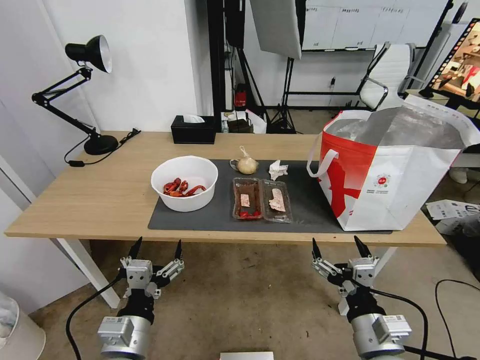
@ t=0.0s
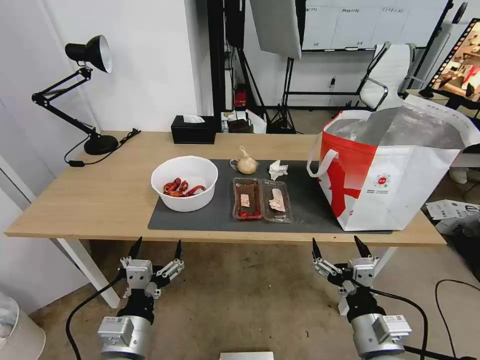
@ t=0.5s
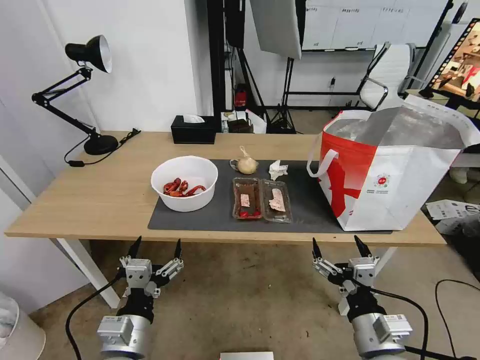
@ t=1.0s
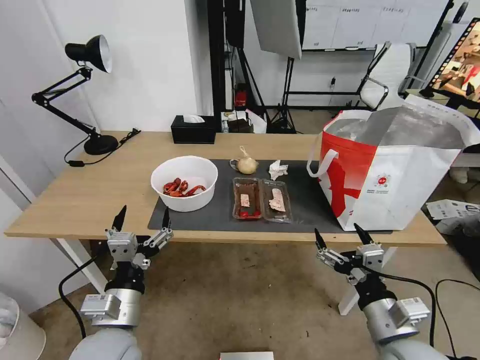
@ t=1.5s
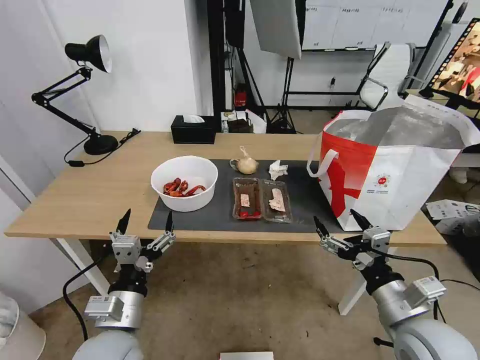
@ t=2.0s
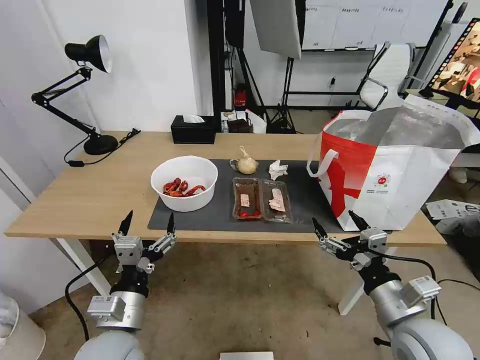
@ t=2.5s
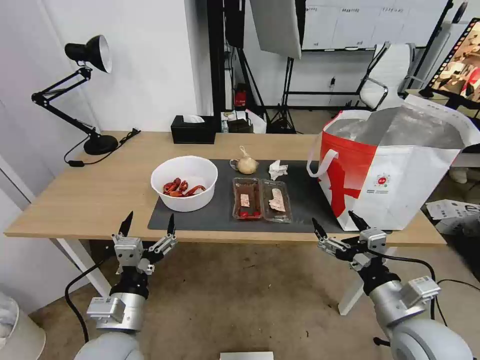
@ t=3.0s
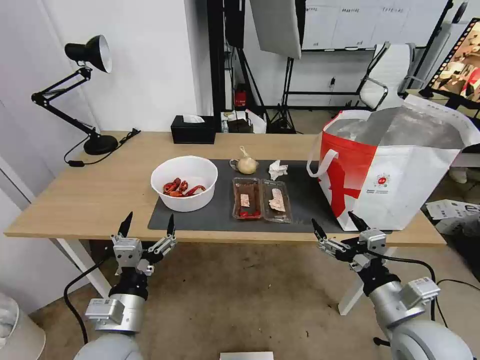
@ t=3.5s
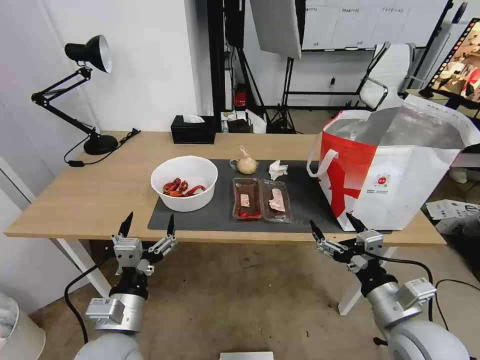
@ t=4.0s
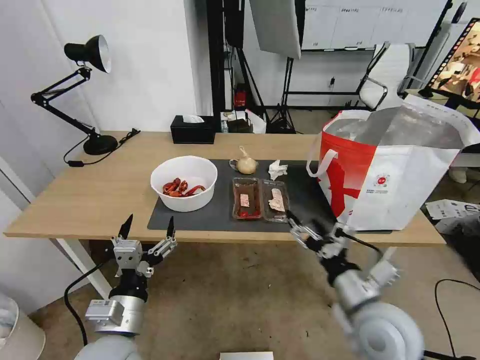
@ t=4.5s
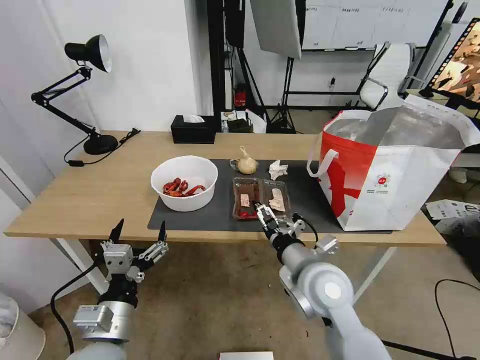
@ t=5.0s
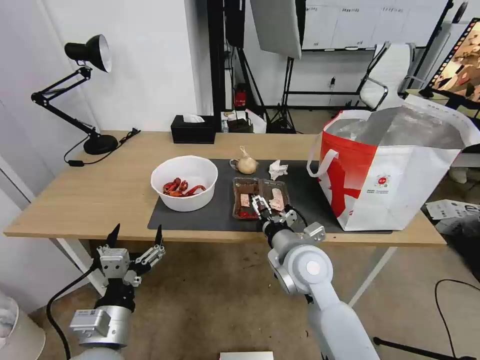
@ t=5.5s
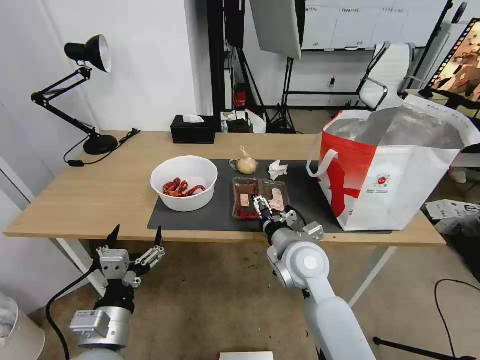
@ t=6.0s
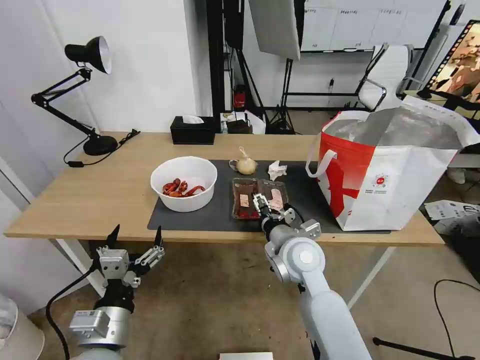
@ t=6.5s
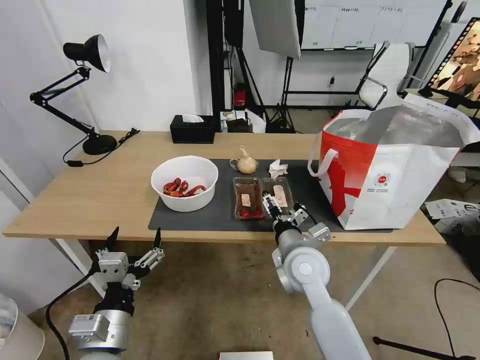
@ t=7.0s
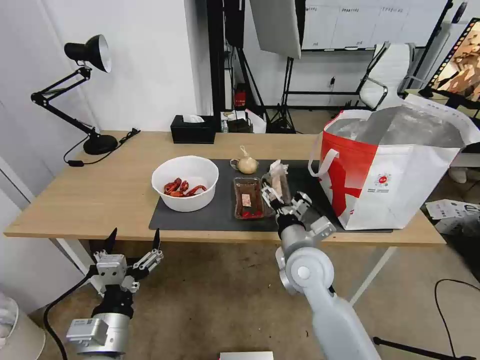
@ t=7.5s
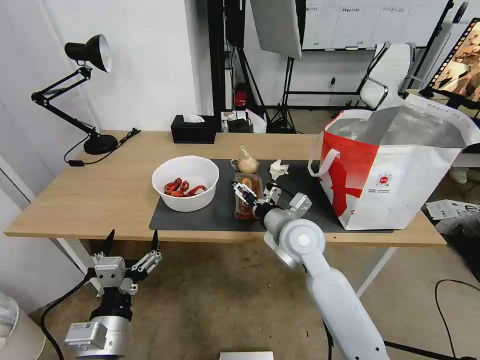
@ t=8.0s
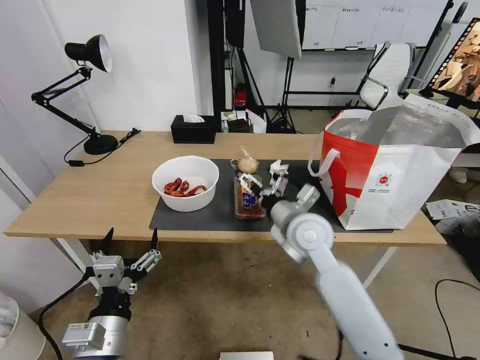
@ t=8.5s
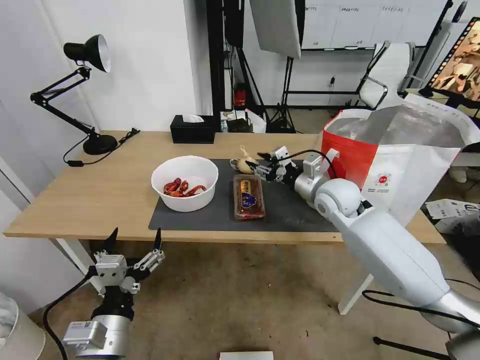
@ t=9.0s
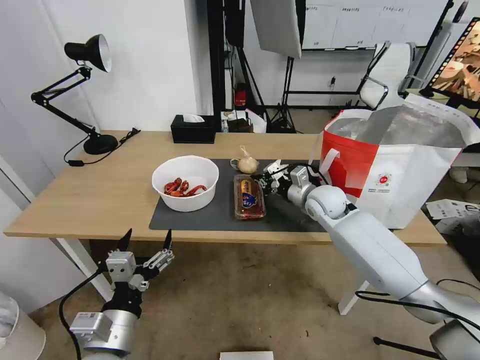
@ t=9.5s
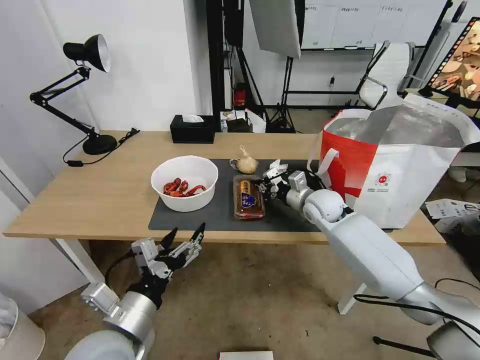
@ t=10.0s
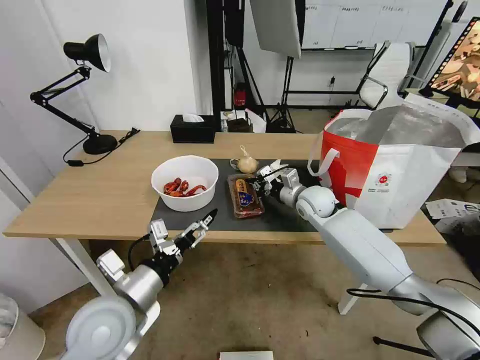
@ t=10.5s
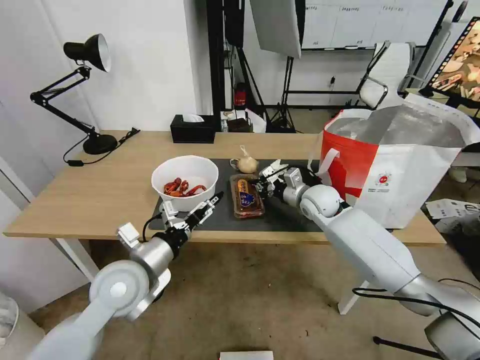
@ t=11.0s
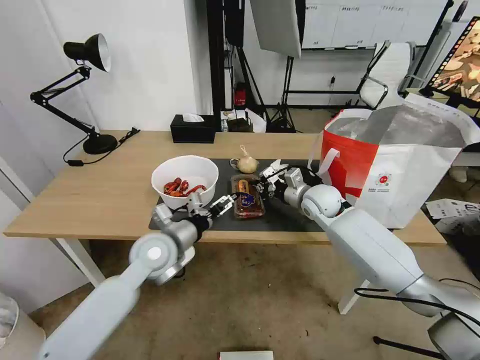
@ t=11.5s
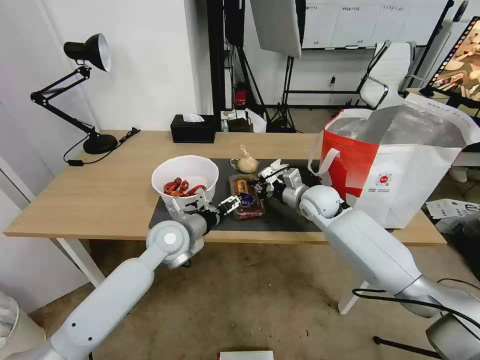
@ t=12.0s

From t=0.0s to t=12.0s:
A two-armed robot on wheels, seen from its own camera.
Task of the whole recording: Pick up the trash from the table and place it into the takeout bag.
From t=2.0s to t=4.0s: Both grippers stay about where they are.
From t=4.0s to t=6.0s: The right gripper goes roughly 20 cm to the left and forward.
From t=8.0s to t=10.0s: The right gripper heads forward and to the right, covering some 15 cm, and closes up.
From t=10.0s to t=12.0s: The left gripper goes about 25 cm forward.

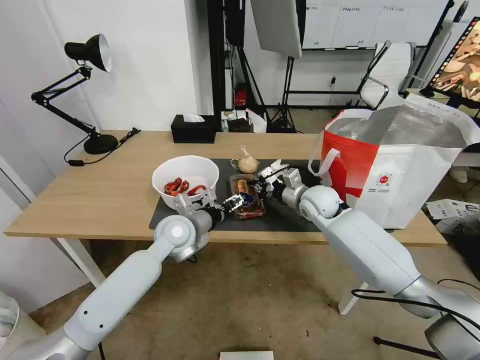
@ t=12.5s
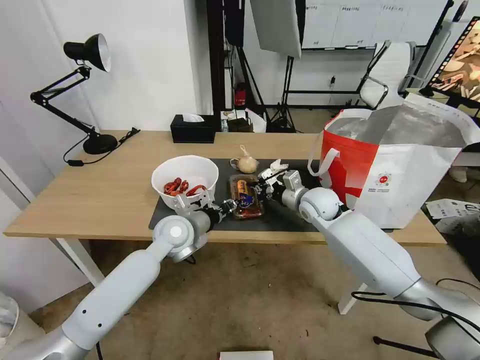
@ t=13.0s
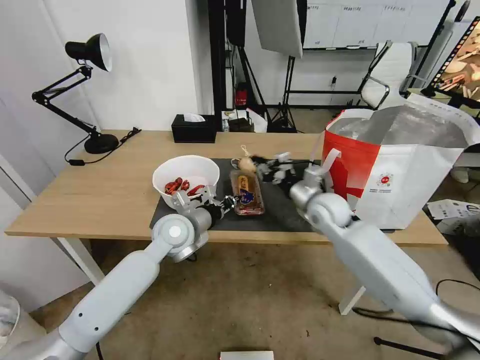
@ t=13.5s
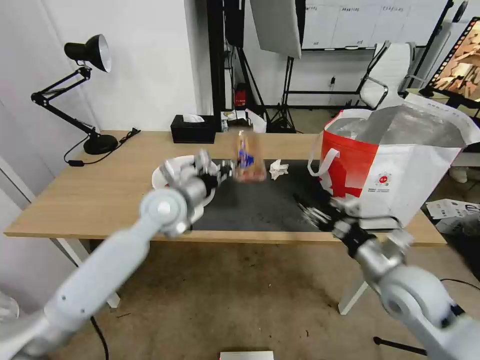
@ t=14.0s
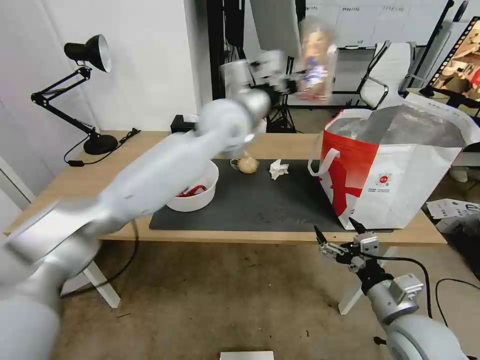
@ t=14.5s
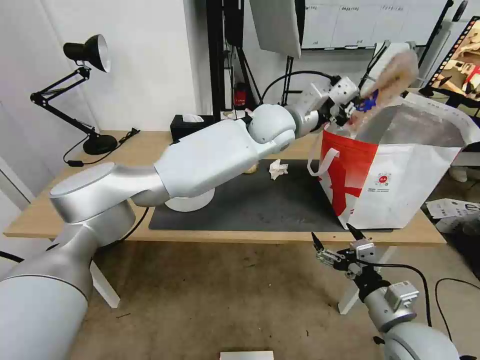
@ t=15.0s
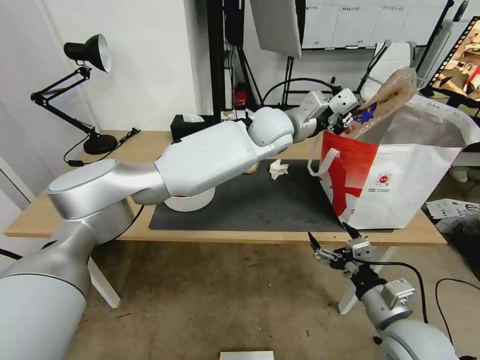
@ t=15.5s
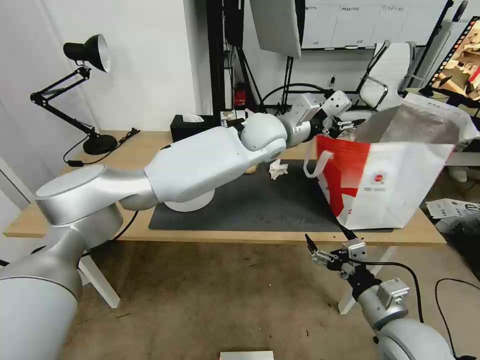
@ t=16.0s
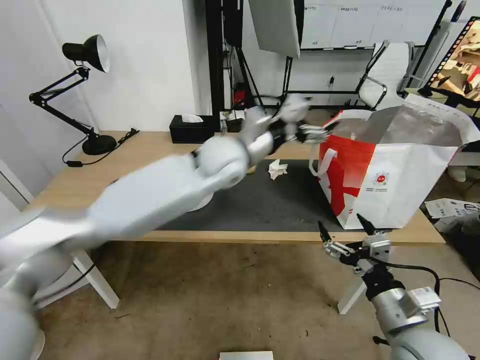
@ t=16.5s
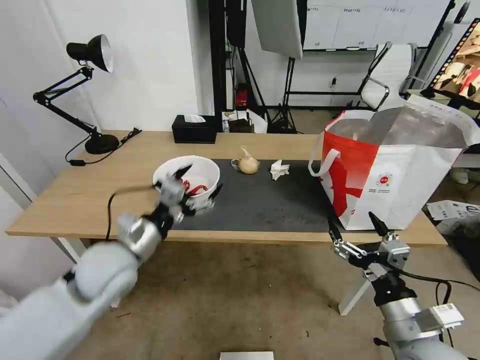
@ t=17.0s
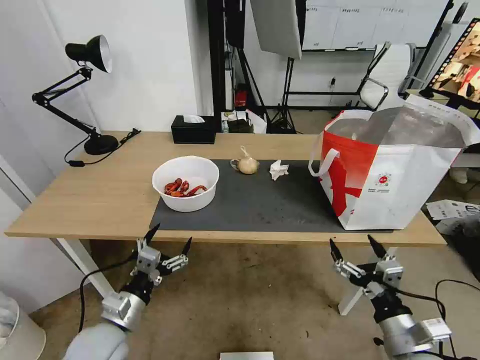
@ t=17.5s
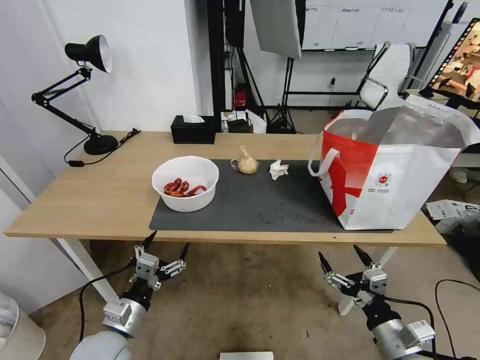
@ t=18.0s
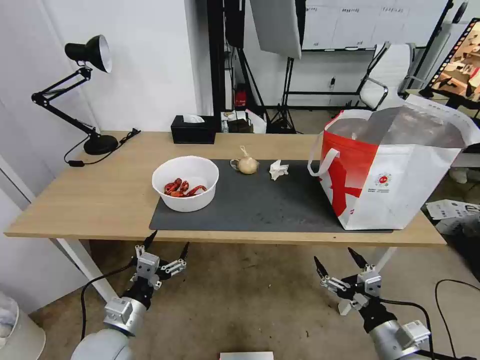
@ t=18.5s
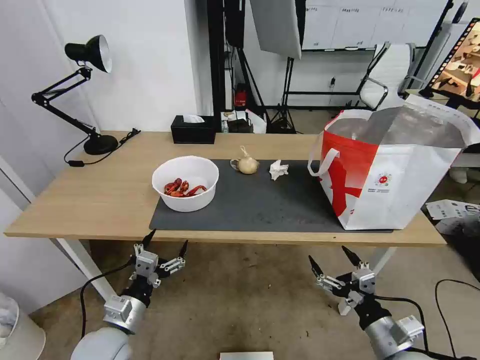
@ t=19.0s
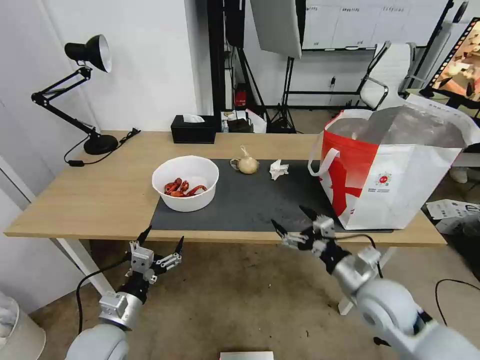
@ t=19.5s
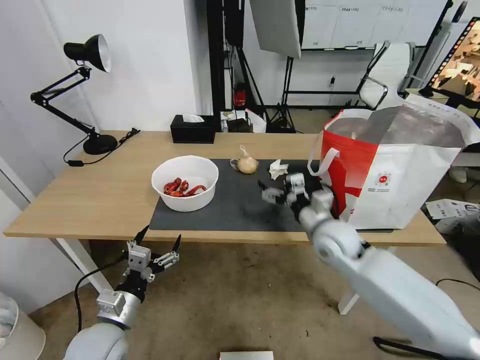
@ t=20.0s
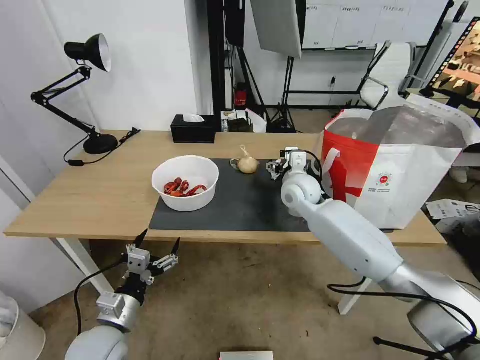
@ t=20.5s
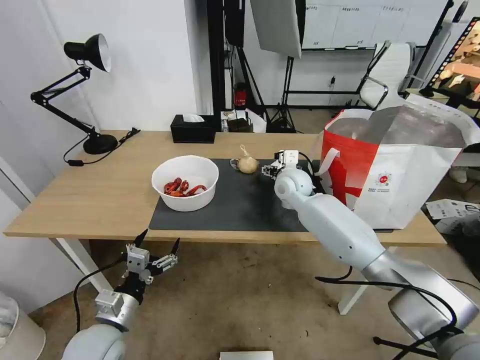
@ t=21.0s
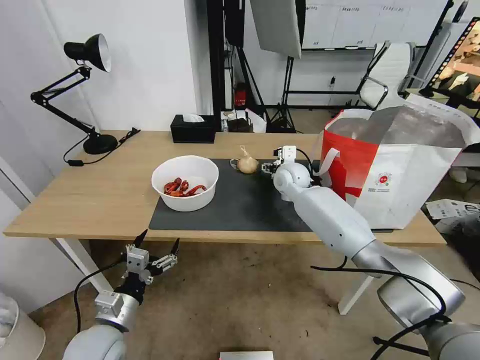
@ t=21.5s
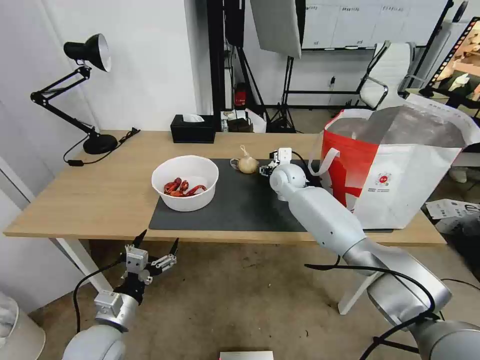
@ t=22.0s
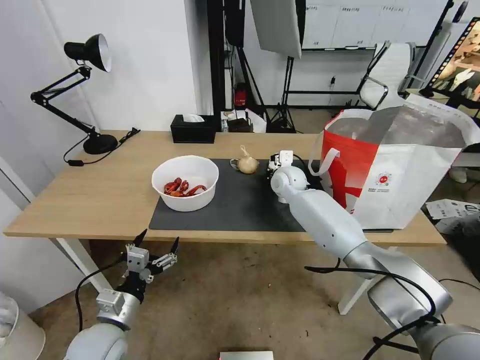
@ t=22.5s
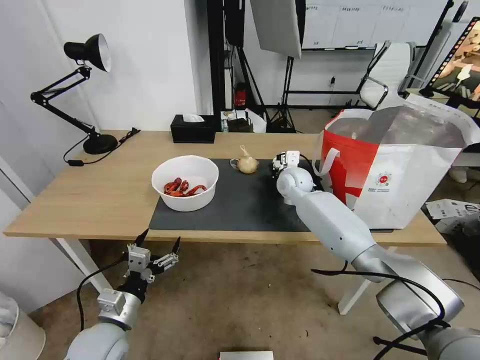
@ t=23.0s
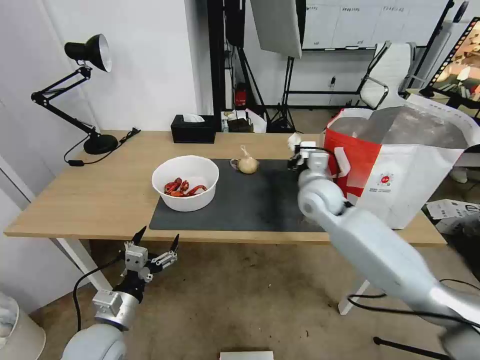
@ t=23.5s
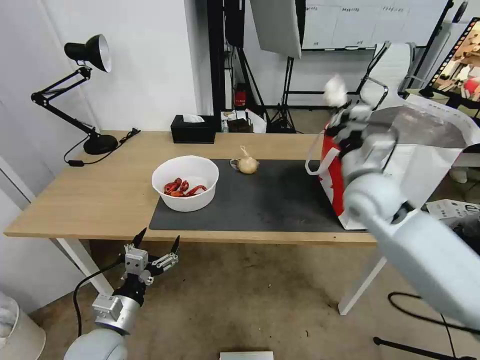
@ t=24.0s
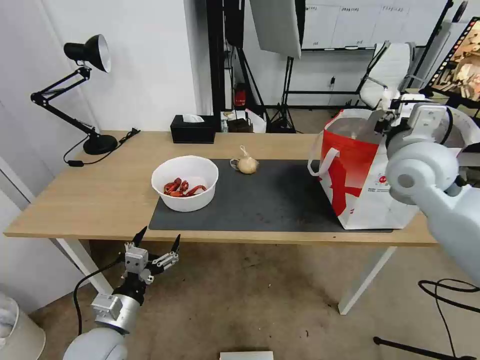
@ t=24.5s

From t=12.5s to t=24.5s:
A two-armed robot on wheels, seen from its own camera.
Task of the whole recording: Pick up the trash from the table and place it into the takeout bag.
From t=12.5s to t=14.5s: The left gripper travels upward and to the right by about 25 cm, and closes its fingers; the right gripper goes some 30 cm backward, and opens its fingers.
From t=14.5s to t=16.5s: The left gripper travels downward by roughly 5 cm, travels to the right and back again, about 10 cm each way, and opens up.
From t=16.5s to t=18.5s: The left gripper heads backward, downward and to the left, covering about 50 cm. Meanwhile the right gripper shifts about 10 cm downward.
From t=18.5s to t=20.5s: The right gripper heads forward and to the left, covering approximately 40 cm.
From t=20.5s to t=22.5s: The right gripper goes some 10 cm forward, and closes its fingers.
From t=22.5s to t=24.5s: The right gripper shifts about 30 cm upward, backward and to the right.

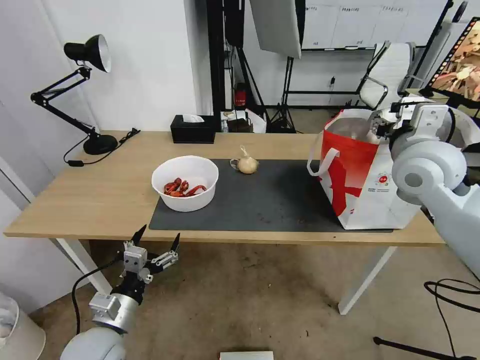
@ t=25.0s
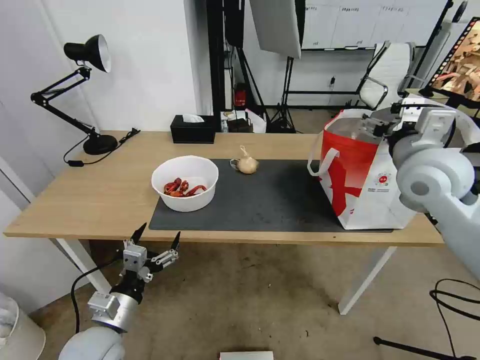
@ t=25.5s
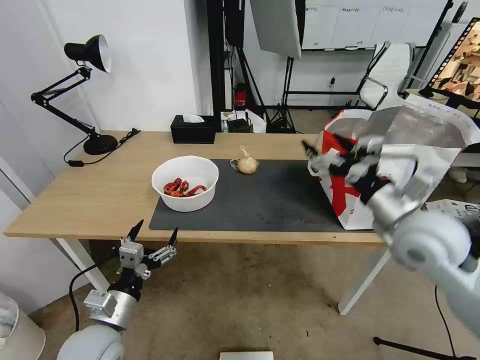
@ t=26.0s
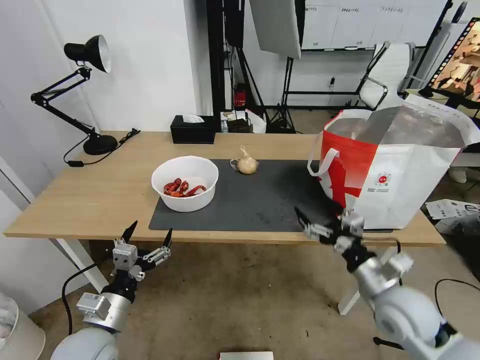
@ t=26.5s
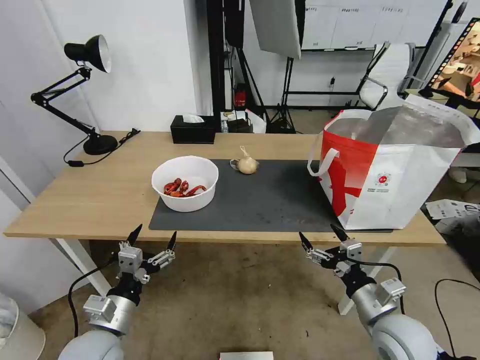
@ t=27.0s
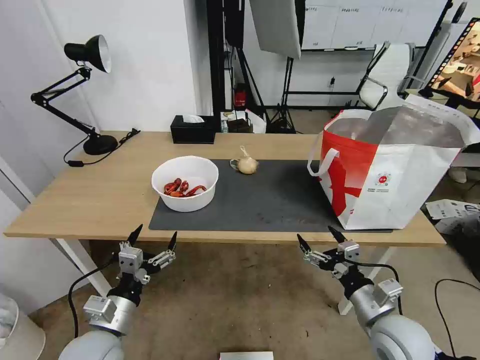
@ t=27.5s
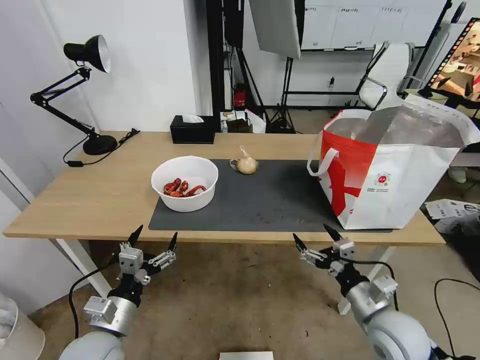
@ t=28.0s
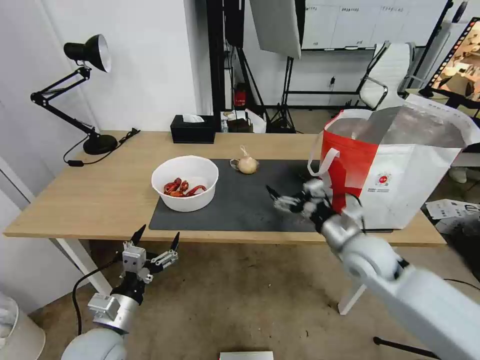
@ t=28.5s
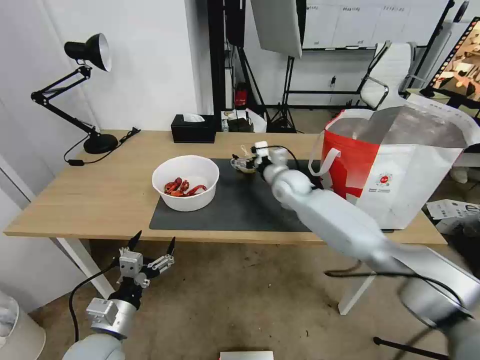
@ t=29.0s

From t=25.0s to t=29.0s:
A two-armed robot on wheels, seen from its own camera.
Task of the whole recording: Pick up the trash from the table and place it into the takeout bag.
From t=25.0s to t=27.0s: The right gripper goes some 35 cm downward and backward, and opens.
From t=27.0s to t=29.0s: The right gripper goes roughly 40 cm forward and to the left.
